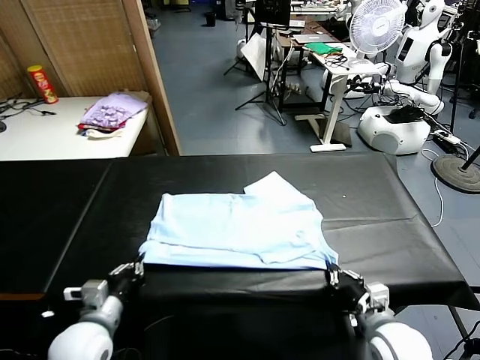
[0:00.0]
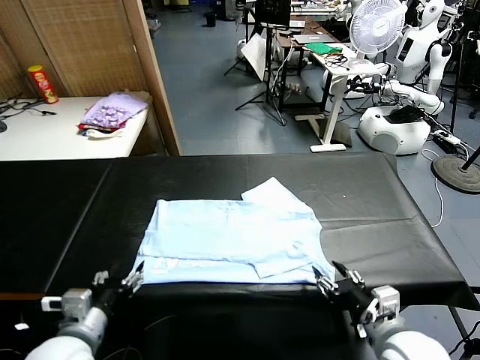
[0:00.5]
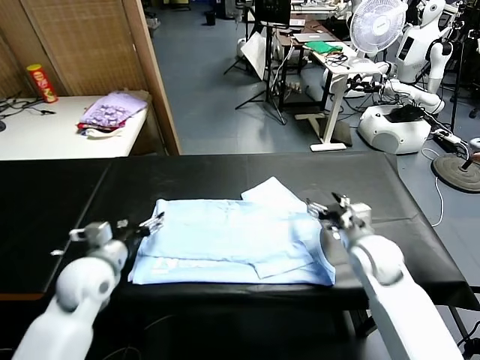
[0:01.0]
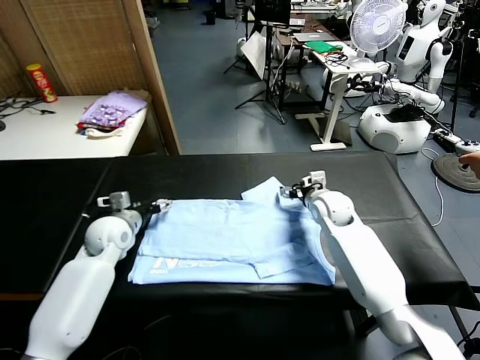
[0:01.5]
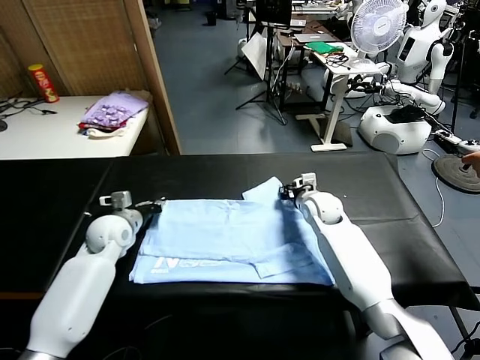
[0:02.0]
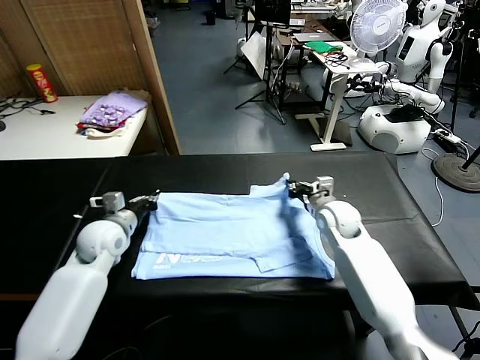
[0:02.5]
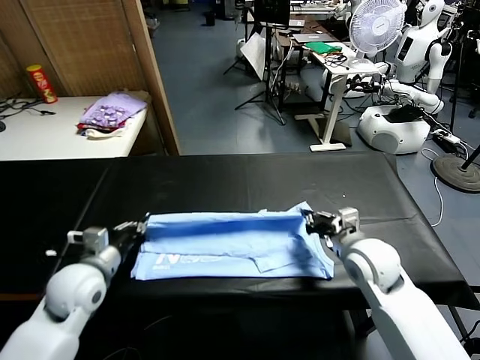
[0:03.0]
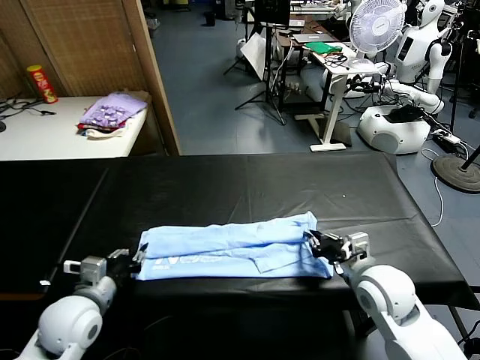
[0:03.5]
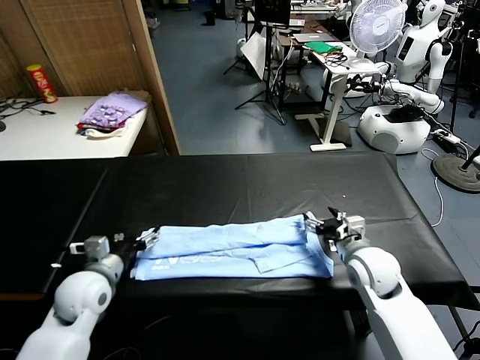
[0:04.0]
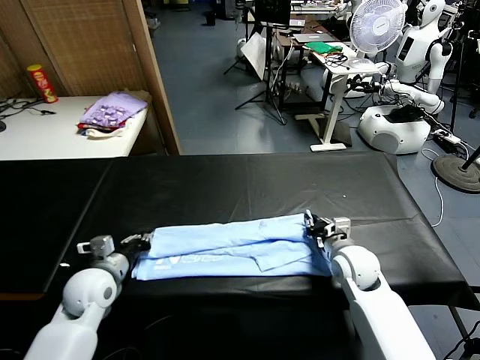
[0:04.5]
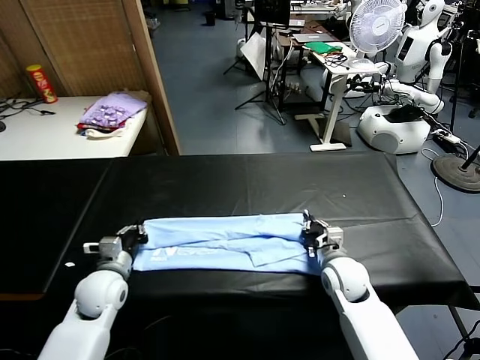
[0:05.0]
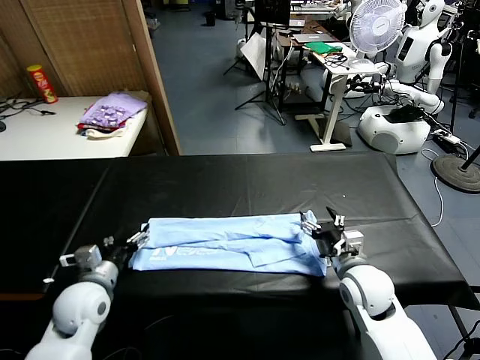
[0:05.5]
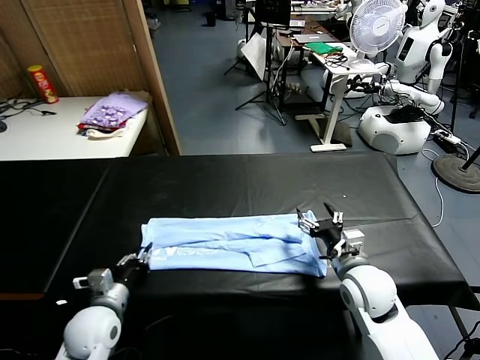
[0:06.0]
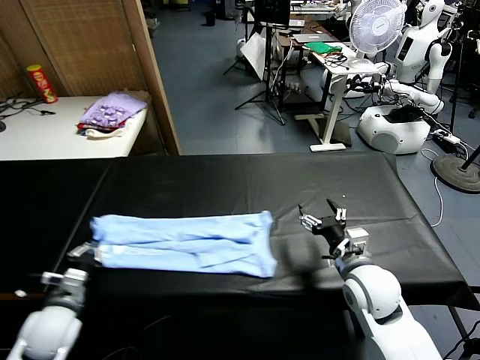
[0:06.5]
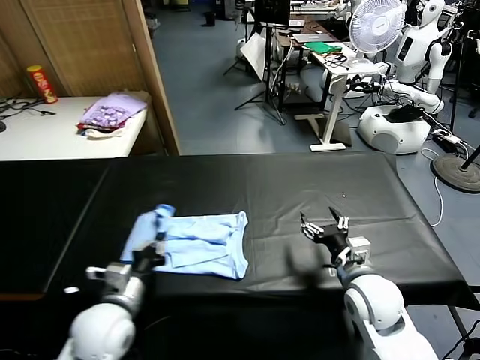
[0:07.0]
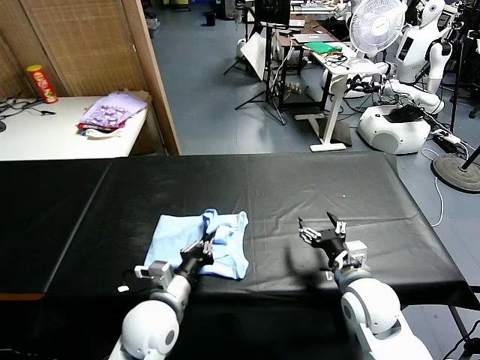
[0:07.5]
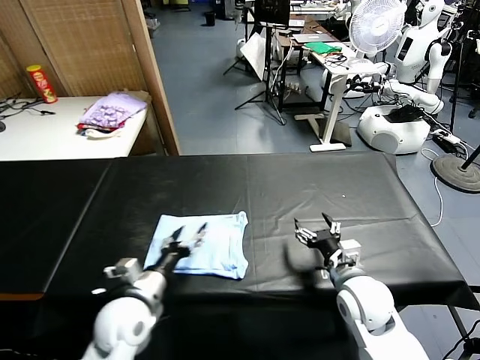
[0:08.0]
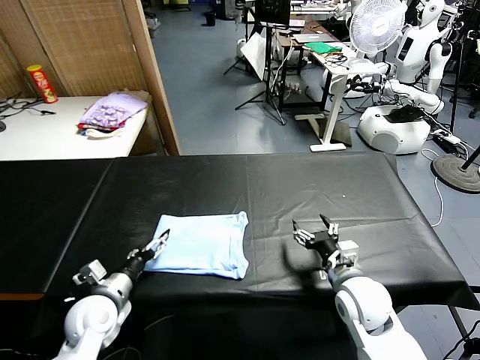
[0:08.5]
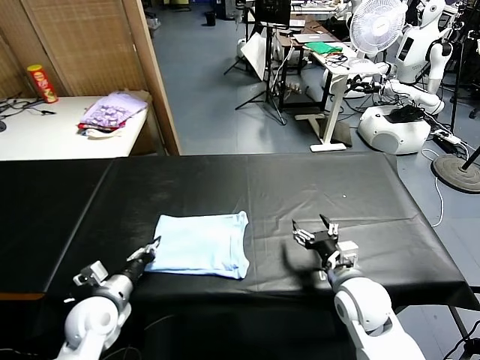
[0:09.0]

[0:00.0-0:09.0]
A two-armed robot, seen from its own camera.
Task of the whole recording: fold and organize the clothes.
Step, 0:00.5 to 0:02.0: use both grippers simultaneously to clamp the upper edge of the clothing fabric.
Step, 0:02.5 to 0:03.5: use both grippers to drag the upper edge of the fabric backward and fold it over the lower edge.
Step, 0:04.0 to 0:06.0: use the left gripper to clamp the left edge of the fabric.
Step, 0:06.5 to 0:07.5: use the left gripper to drag the left edge of the fabric to the left and folds it over the right edge.
0:00.0 to 0:02.0: Both grippers move forward, roughly 30 cm. The left gripper opens, then closes once more. Meanwhile the right gripper opens, then closes once more.
0:02.0 to 0:04.5: The two grippers go approximately 15 cm backward. The left gripper opens and closes again. The right gripper opens, then closes once more.
0:04.5 to 0:07.0: The right gripper moves backward and upward, approximately 10 cm, and opens. Meanwhile the left gripper travels backward and to the right by approximately 10 cm, and opens and closes again.
0:07.0 to 0:09.0: The left gripper is displaced downward and to the left by roughly 10 cm, and opens, then closes once more.

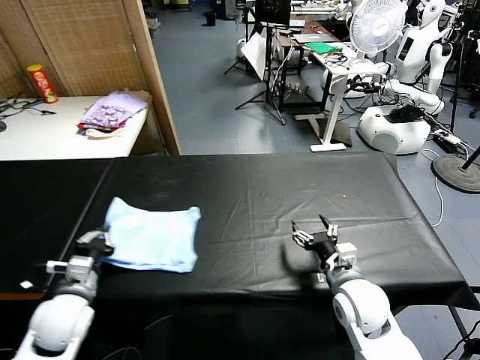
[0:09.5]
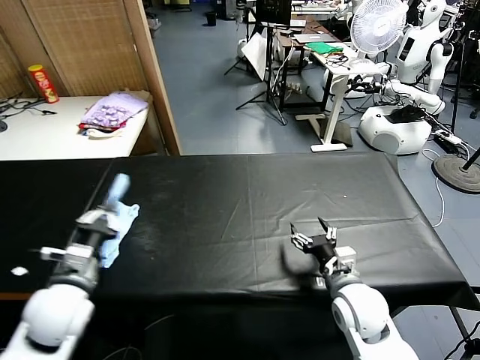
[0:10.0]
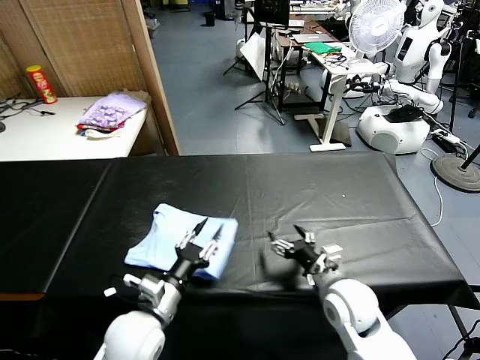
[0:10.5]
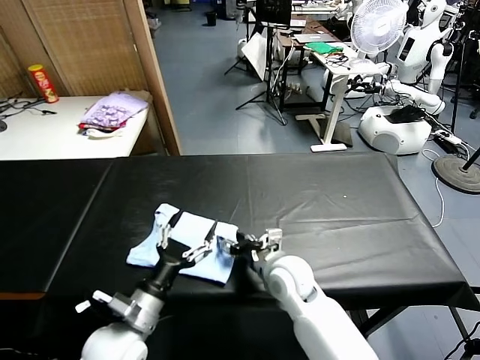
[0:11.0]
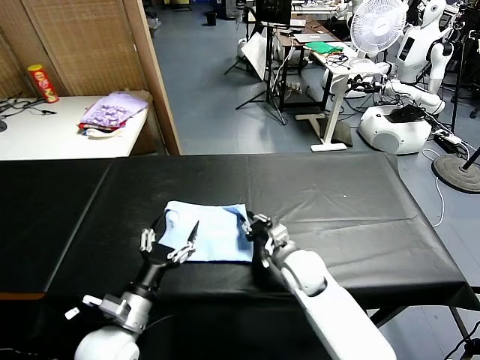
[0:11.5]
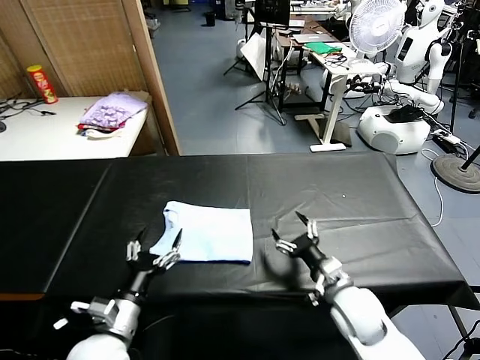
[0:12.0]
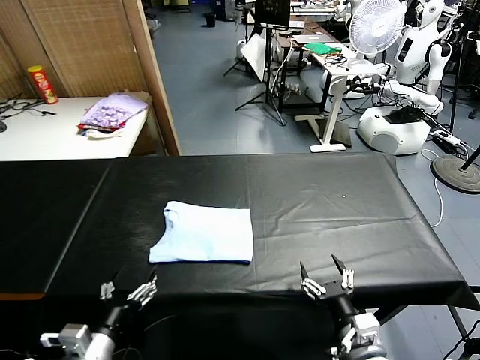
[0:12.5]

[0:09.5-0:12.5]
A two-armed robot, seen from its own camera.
Task of the whole recording: fold and organize the clothes.
Step, 0:11.0 to 0:11.5: Drag the clothes to the center of the table.
0:09.5 to 0:11.0: The right gripper moves to the left and forward, about 15 cm. Meanwhile the left gripper travels to the right by approximately 10 cm, and opens its fingers.
0:11.0 to 0:12.5: The left gripper goes about 10 cm backward and to the left. The right gripper heads backward and to the right, covering roughly 20 cm, and closes, then reopens.

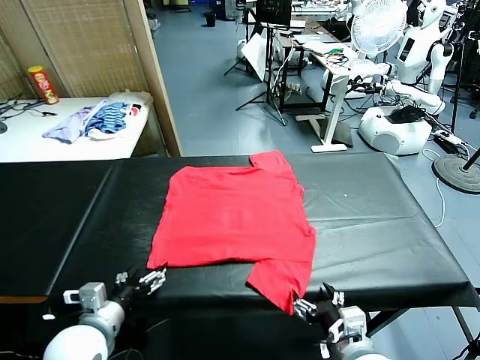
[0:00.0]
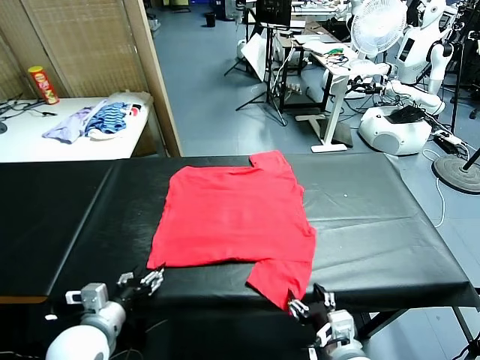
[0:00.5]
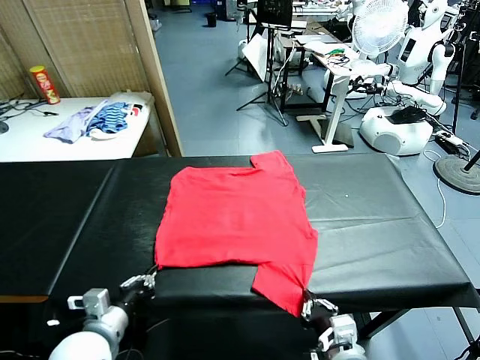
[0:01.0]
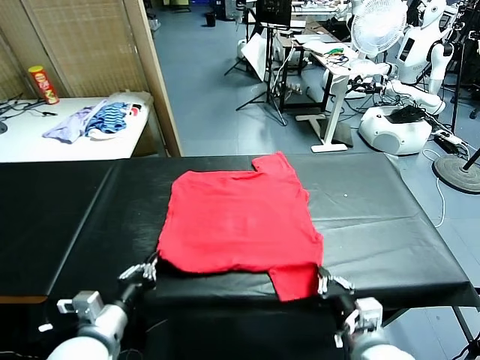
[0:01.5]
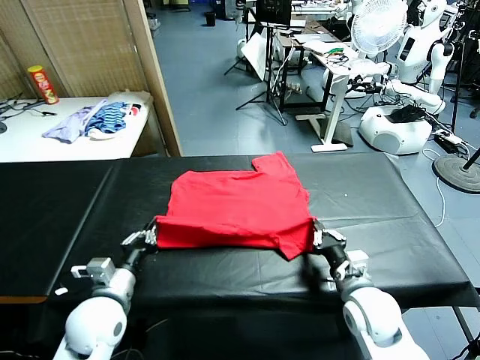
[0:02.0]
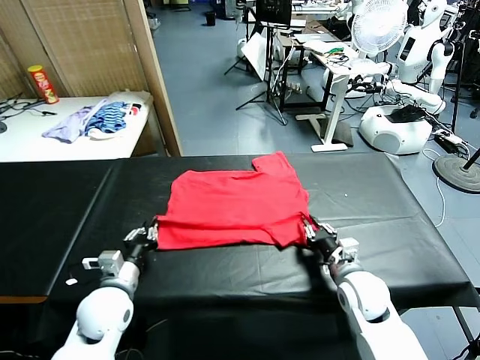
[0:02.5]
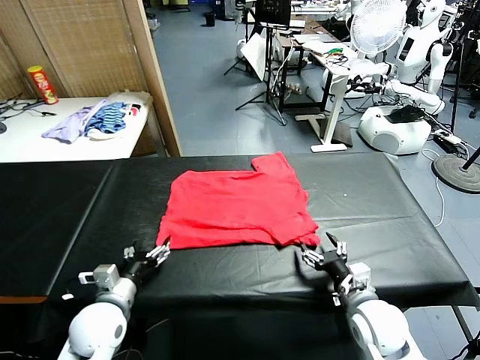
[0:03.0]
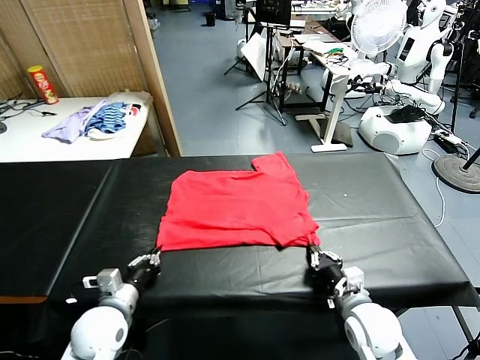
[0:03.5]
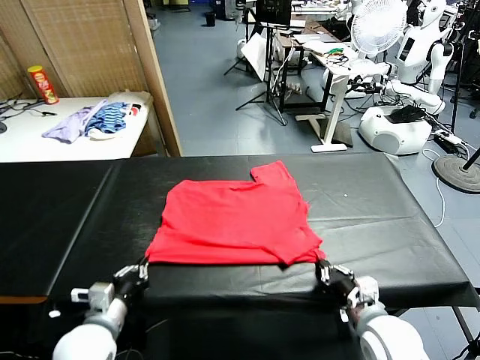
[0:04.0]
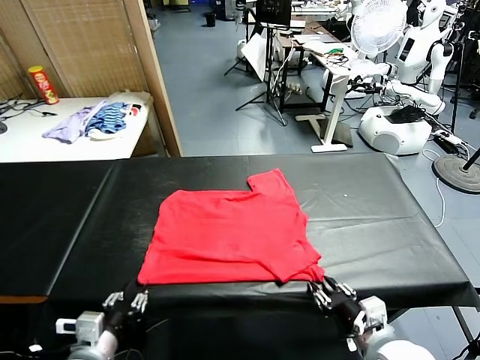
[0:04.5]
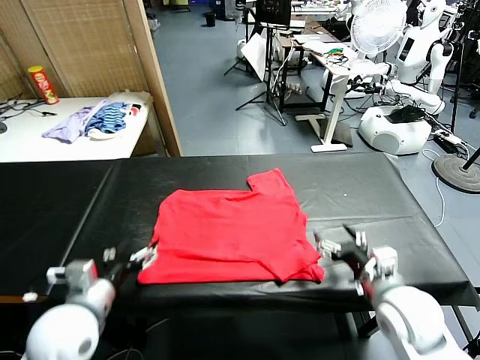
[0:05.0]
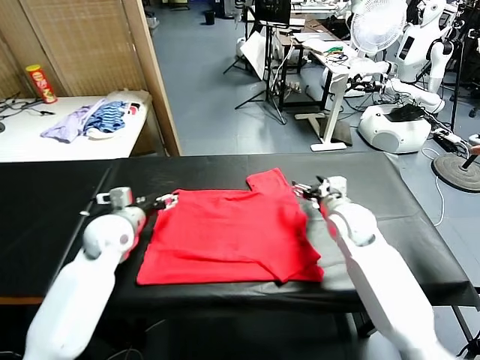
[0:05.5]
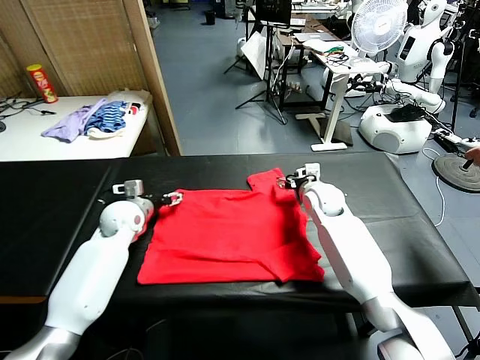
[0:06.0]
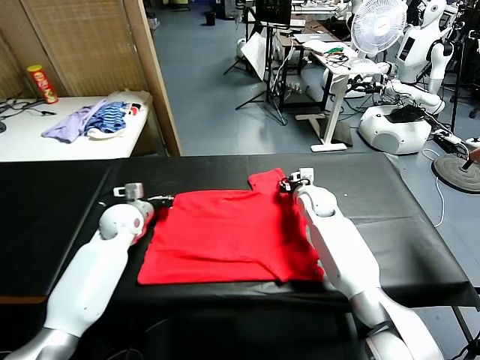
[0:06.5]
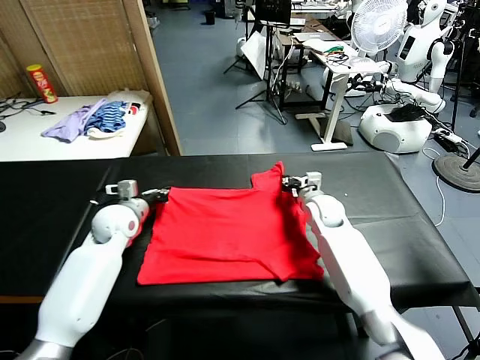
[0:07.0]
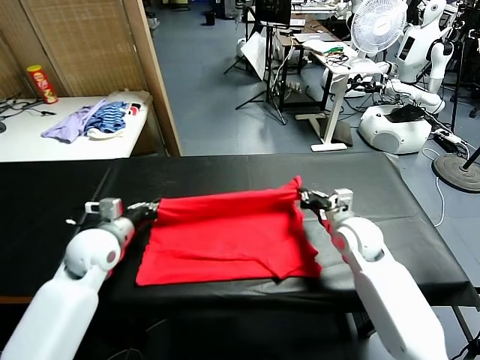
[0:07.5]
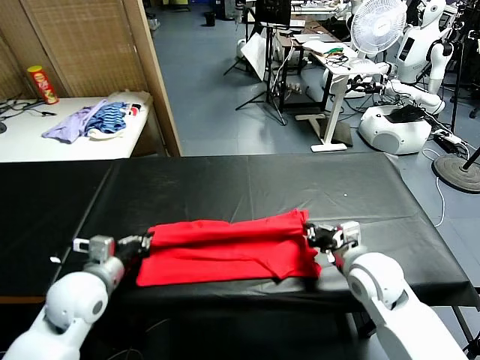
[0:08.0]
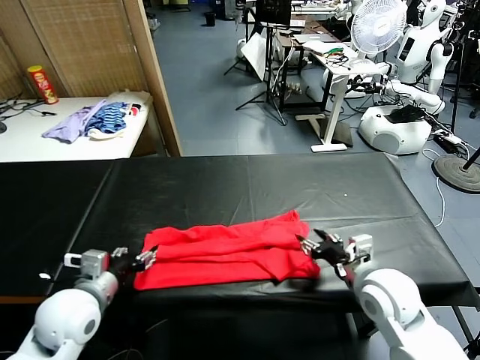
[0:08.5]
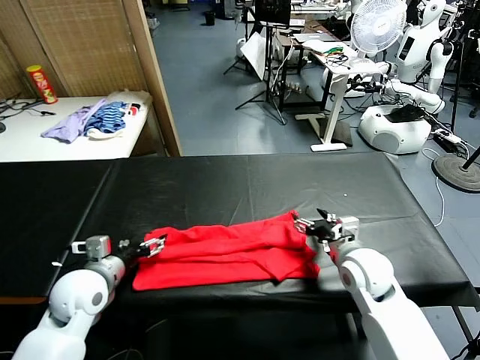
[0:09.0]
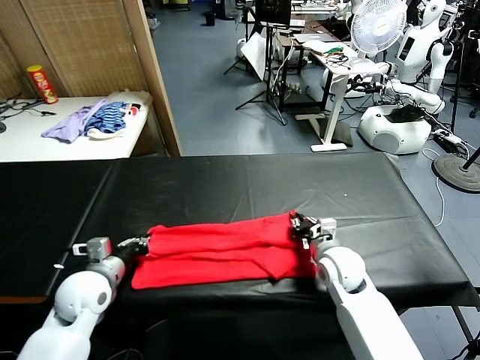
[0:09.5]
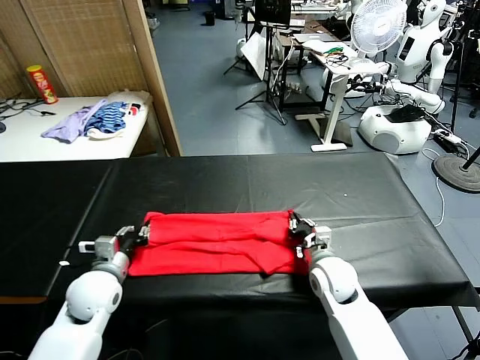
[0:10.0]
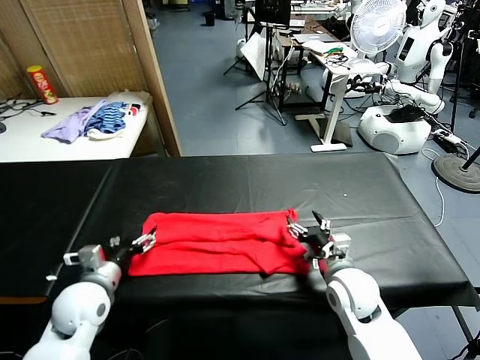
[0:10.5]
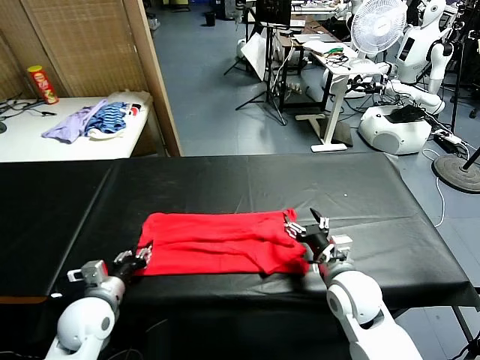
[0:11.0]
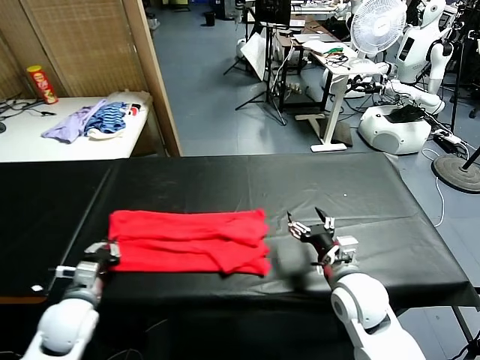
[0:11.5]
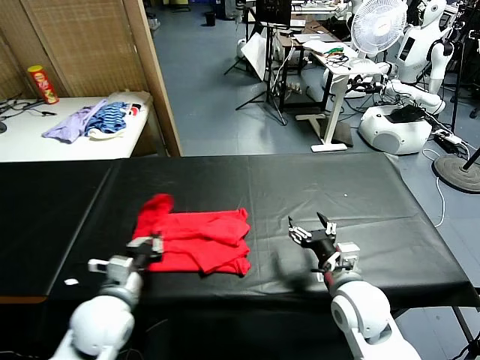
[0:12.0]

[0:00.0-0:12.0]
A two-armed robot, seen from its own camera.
Task of the whole recording: fold and organize the clothes.
Step, 0:00.0 to 0:01.0: use both grippers simultaneously to clamp the lower edge of the clothing fabric.
Step, 0:01.5 to 0:02.5: use both grippers to drag the lower edge of the fabric forward and fold it over the upper edge.
Step, 0:03.0 to 0:04.5: Drag the clothes downward with both gripper.
Step, 0:05.0 to 0:07.0: use both grippers simultaneously to clamp the upper edge of the clothing fabric.
Step, 0:07.5 to 0:08.5: use both grippers to drag the upper edge of the fabric backward and fold it over the lower edge.
Step, 0:09.0 to 0:11.0: use the left gripper to clamp the left edge of the fabric.
0:02.0 to 0:04.0: The right gripper is displaced backward by about 15 cm, and opens and closes again, while the left gripper moves backward, approximately 5 cm, and opens and closes again.
0:04.0 to 0:06.0: The grippers both shift forward by about 35 cm. The right gripper opens up, while the left gripper opens up.
0:06.0 to 0:08.0: Both grippers move backward, approximately 25 cm. The left gripper closes; the right gripper closes its fingers.
0:08.0 to 0:10.0: The right gripper moves downward, approximately 5 cm, and opens, while the left gripper changes place by approximately 5 cm, and opens its fingers.
0:10.0 to 0:12.0: The left gripper goes about 10 cm to the right and backward, and closes, while the right gripper moves backward, roughly 5 cm, and opens.
